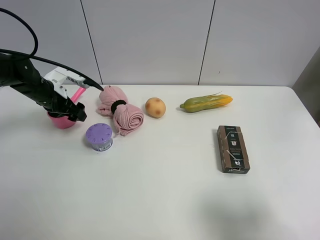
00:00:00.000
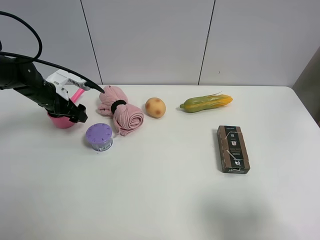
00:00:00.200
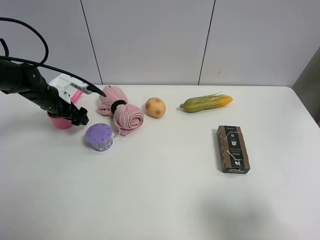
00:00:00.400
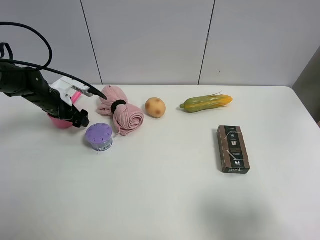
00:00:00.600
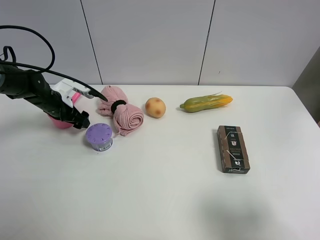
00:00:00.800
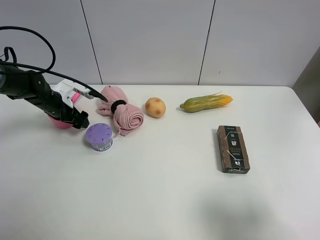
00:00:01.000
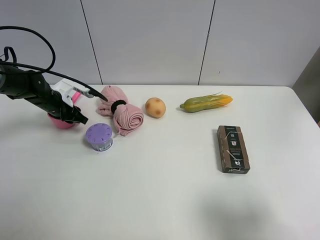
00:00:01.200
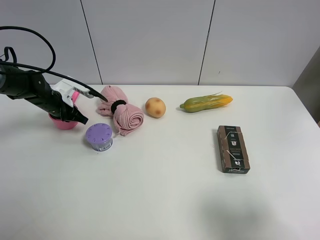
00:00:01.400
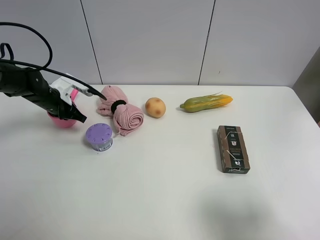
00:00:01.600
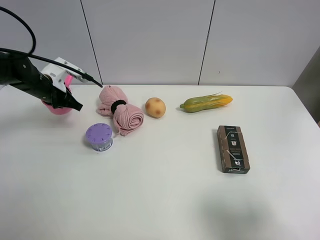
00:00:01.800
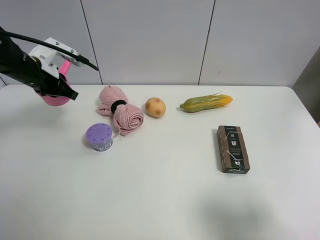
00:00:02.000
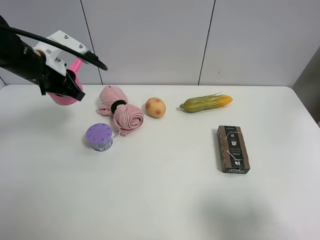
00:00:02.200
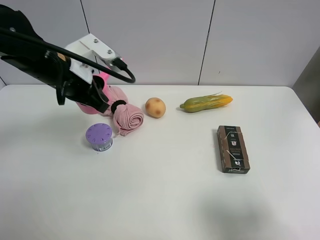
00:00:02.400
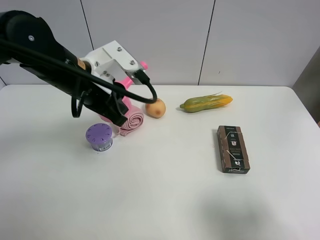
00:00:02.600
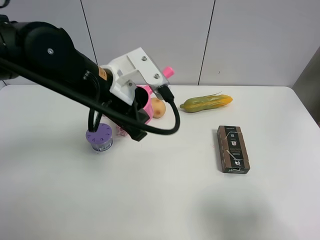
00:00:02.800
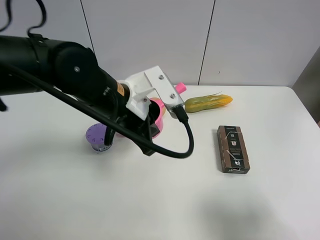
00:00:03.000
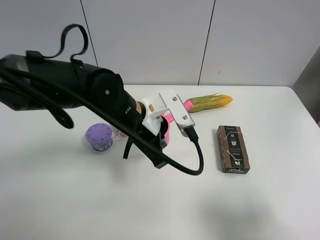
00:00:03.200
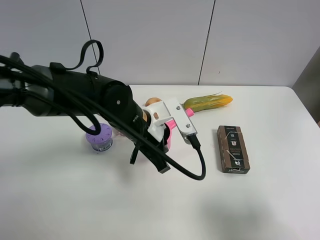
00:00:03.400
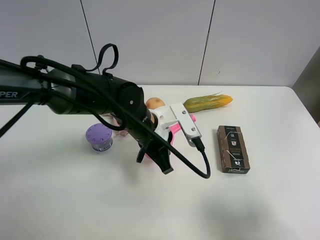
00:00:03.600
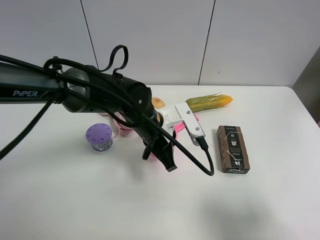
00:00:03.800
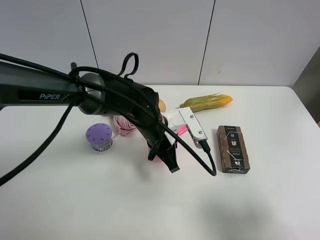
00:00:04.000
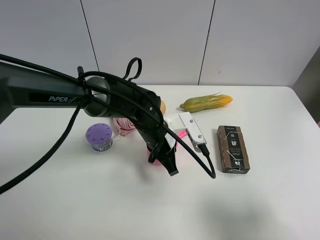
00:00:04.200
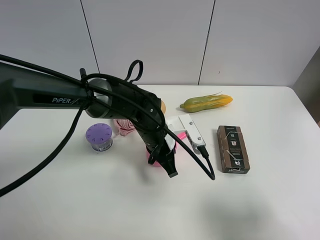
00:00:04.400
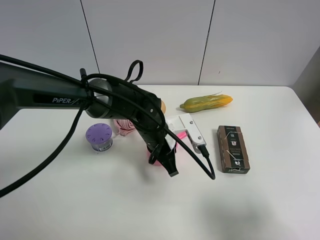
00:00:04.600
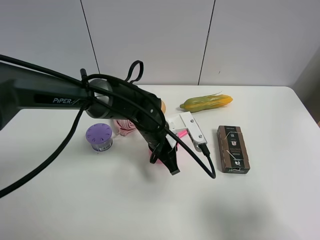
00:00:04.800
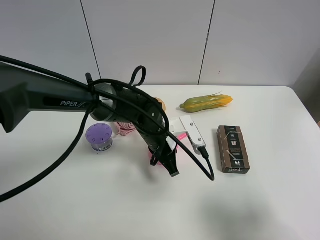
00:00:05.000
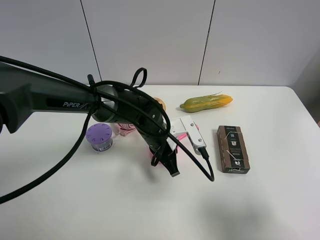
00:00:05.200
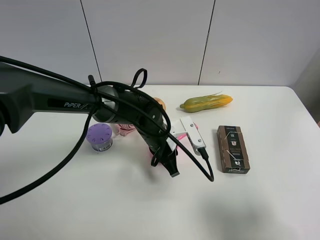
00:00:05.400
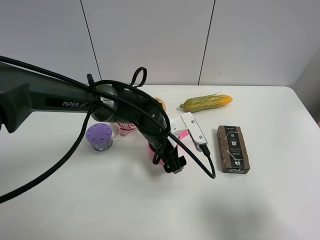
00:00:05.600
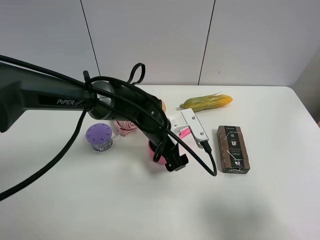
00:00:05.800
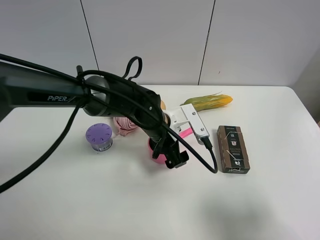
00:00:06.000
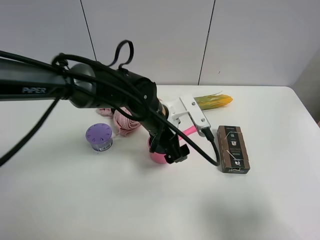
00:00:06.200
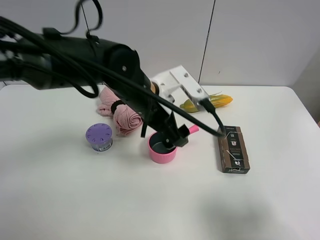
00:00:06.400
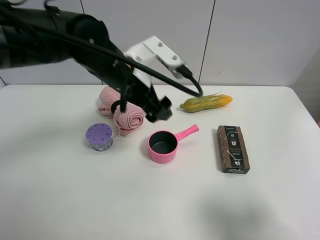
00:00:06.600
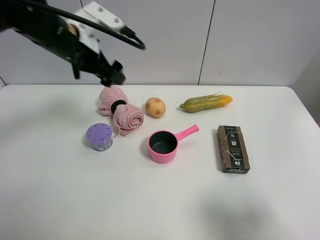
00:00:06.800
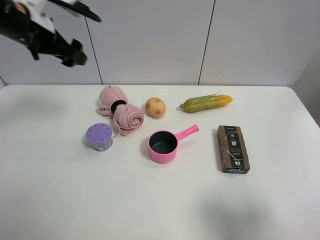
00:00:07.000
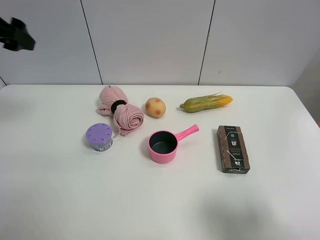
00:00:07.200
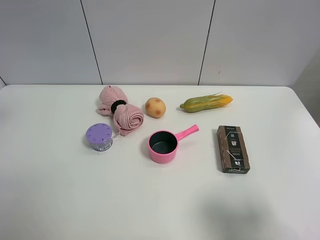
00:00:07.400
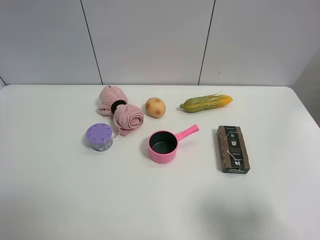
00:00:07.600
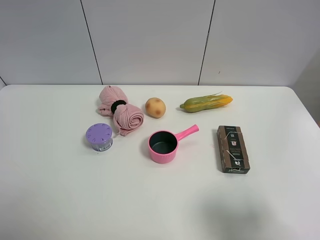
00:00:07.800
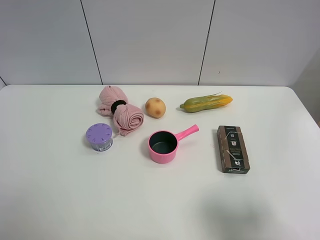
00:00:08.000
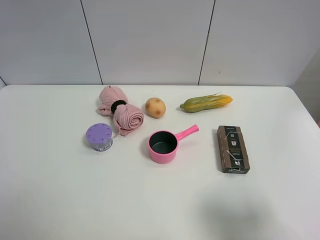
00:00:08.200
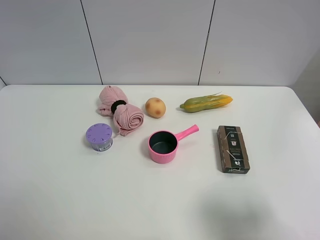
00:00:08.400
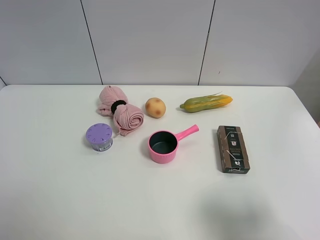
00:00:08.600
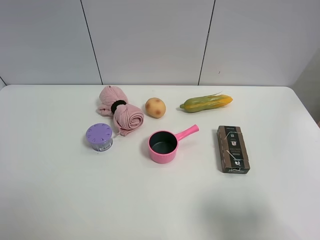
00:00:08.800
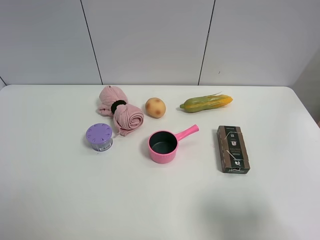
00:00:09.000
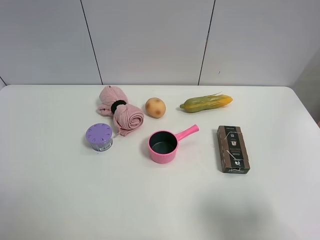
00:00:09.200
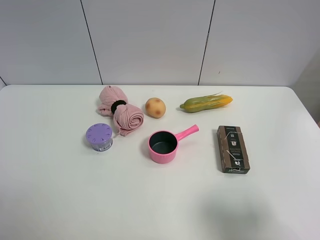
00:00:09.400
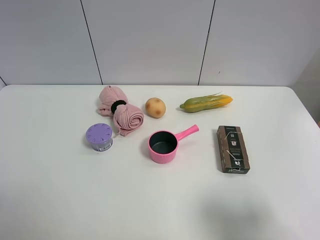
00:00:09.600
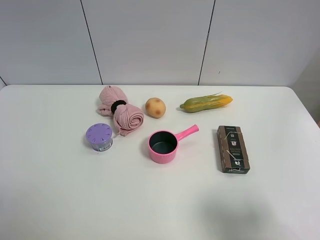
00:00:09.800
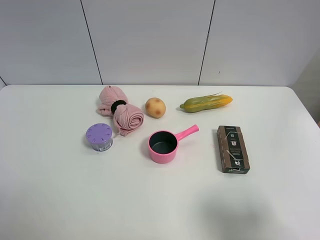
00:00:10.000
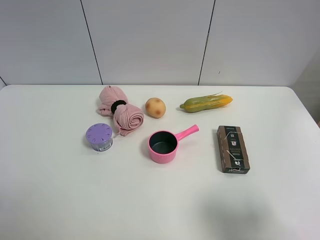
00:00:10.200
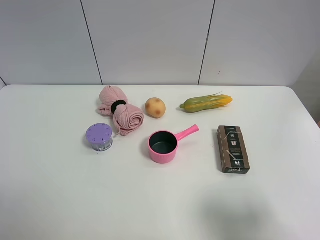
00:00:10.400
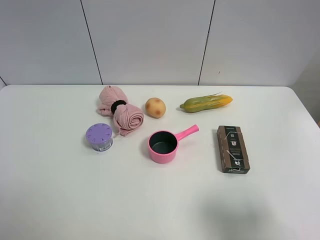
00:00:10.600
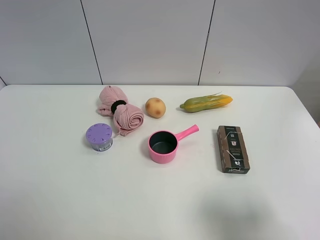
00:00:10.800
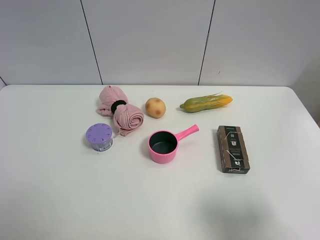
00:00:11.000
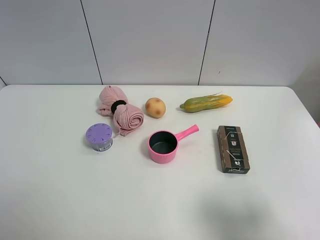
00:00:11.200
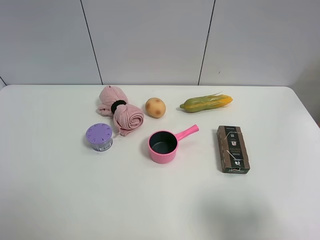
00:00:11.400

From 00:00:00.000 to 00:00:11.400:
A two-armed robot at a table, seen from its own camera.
Task of the whole recording: the gripper move the object.
Step, from 00:00:01.600 to 00:00:05.400: Place the pink pot on the table with the left gripper.
From 00:00:00.000 to 00:00:01.400: The left gripper closes up.
From 00:00:01.400 to 00:00:02.800: The left gripper is displaced to the right, upward and backward by about 30 cm.
From 00:00:02.800 to 00:00:04.200: The left gripper moves downward and to the right, some 15 cm.
From 00:00:04.200 to 00:00:05.600: The left gripper opens up.
From 00:00:05.600 to 00:00:07.200: The left gripper travels to the left and upward by approximately 40 cm.
From 00:00:07.200 to 00:00:08.600: The left gripper heads backward, covering some 30 cm.

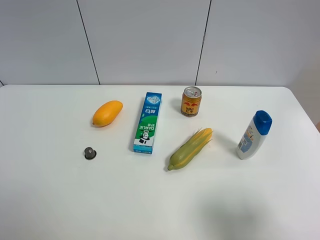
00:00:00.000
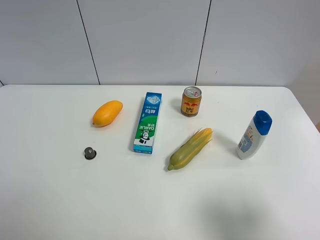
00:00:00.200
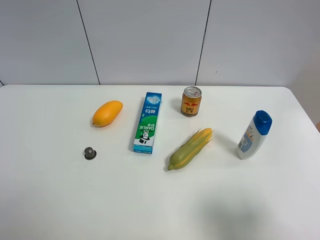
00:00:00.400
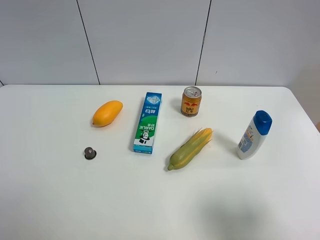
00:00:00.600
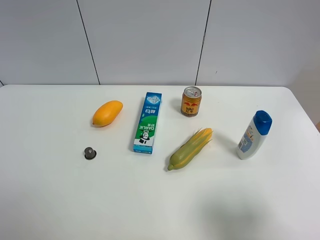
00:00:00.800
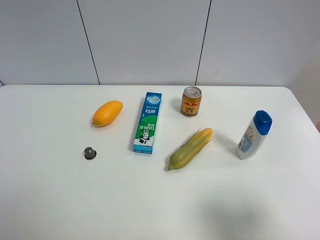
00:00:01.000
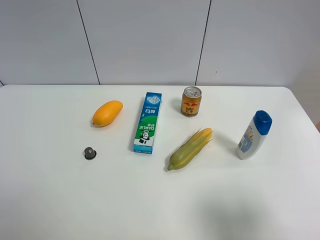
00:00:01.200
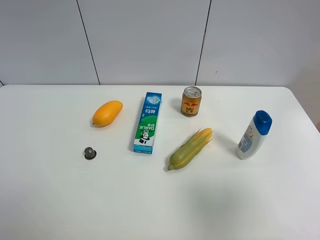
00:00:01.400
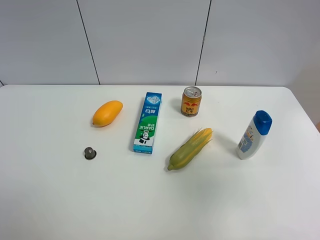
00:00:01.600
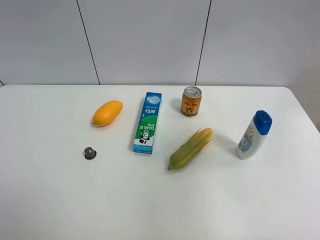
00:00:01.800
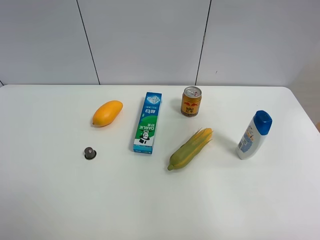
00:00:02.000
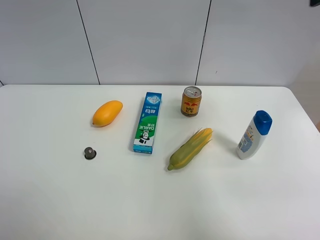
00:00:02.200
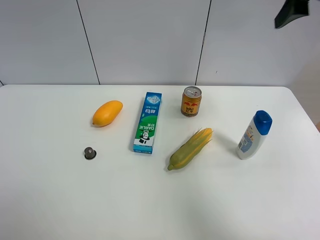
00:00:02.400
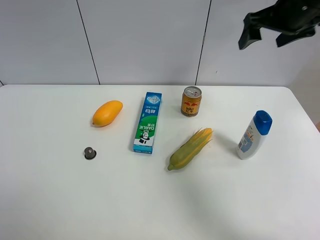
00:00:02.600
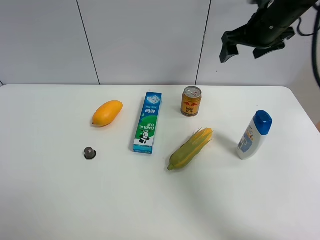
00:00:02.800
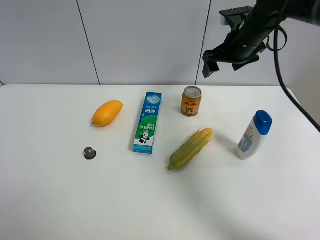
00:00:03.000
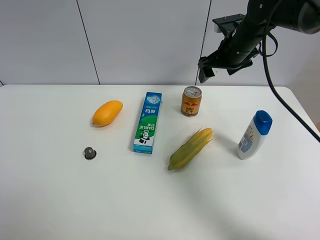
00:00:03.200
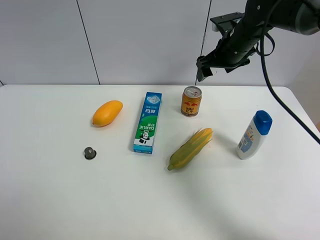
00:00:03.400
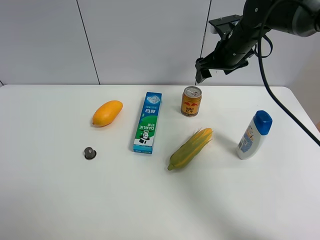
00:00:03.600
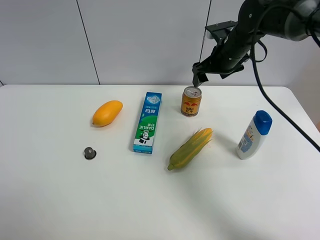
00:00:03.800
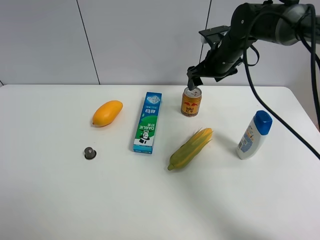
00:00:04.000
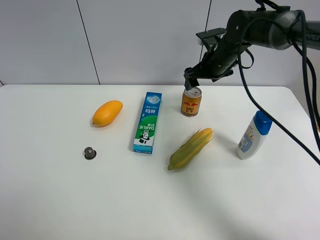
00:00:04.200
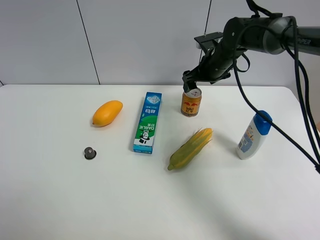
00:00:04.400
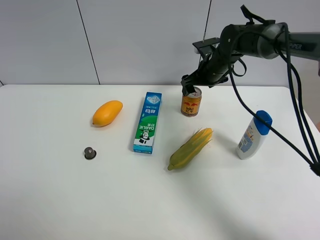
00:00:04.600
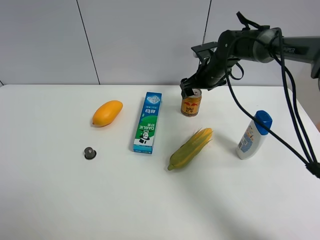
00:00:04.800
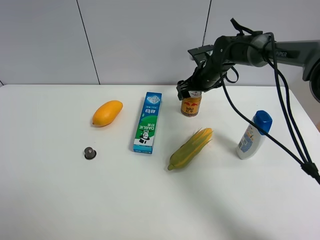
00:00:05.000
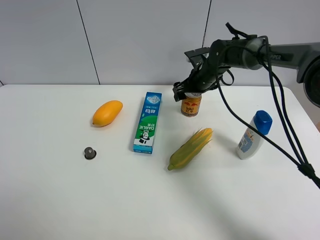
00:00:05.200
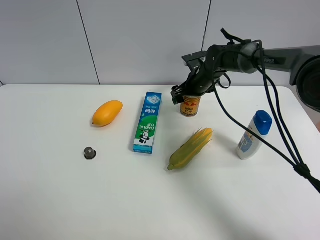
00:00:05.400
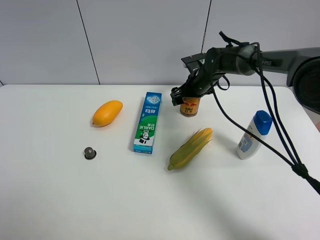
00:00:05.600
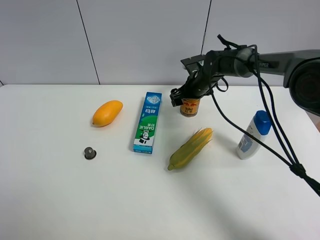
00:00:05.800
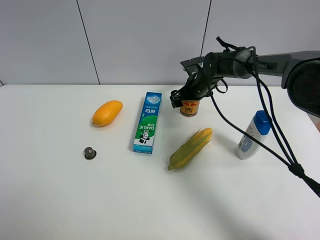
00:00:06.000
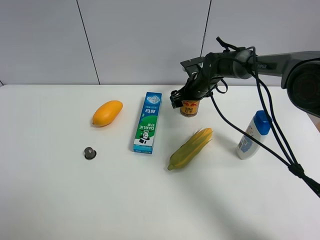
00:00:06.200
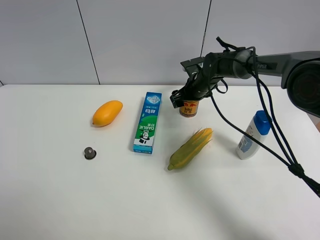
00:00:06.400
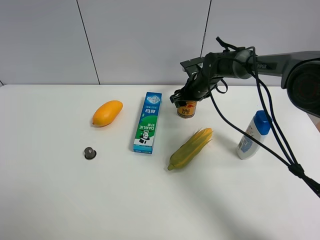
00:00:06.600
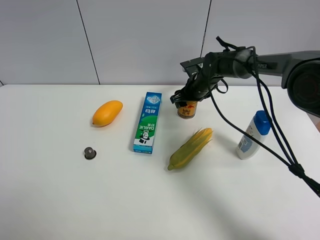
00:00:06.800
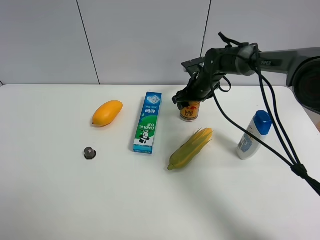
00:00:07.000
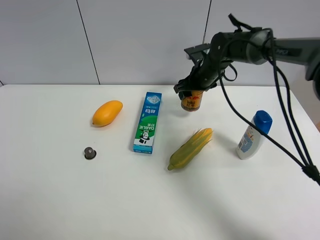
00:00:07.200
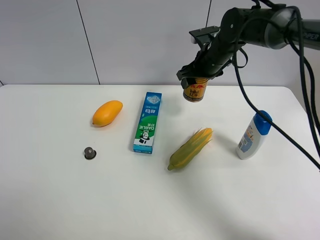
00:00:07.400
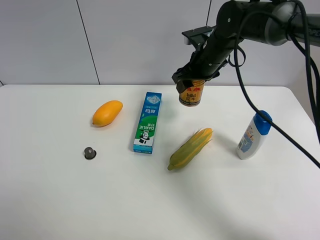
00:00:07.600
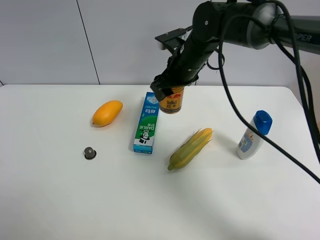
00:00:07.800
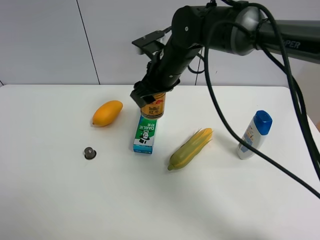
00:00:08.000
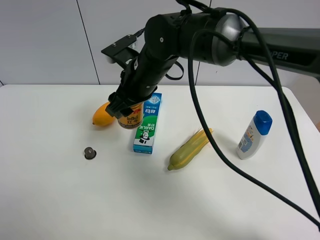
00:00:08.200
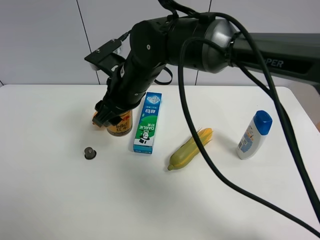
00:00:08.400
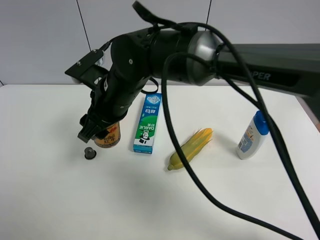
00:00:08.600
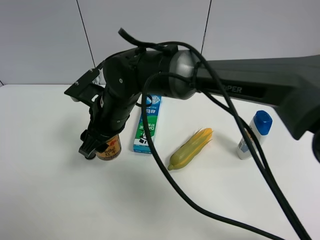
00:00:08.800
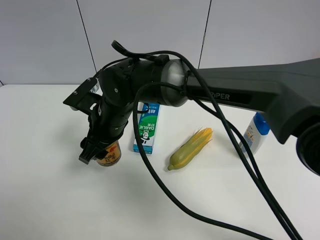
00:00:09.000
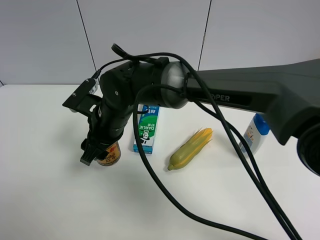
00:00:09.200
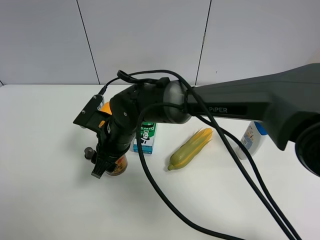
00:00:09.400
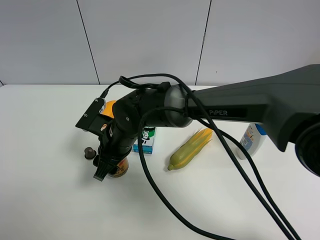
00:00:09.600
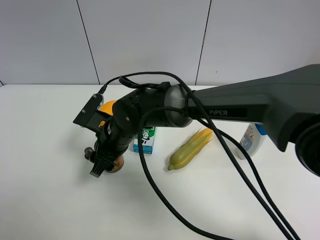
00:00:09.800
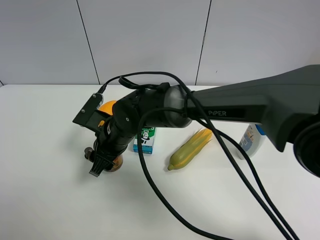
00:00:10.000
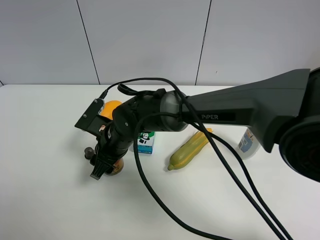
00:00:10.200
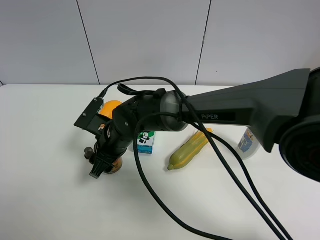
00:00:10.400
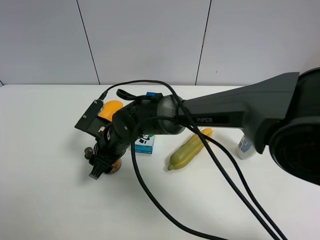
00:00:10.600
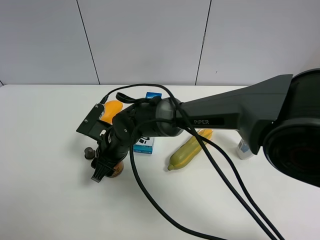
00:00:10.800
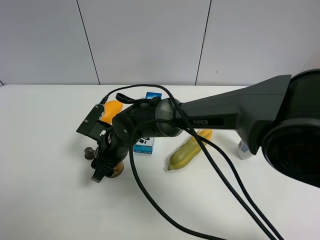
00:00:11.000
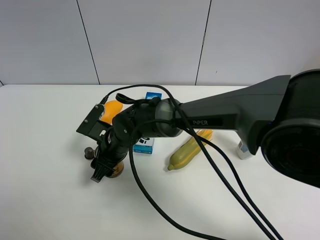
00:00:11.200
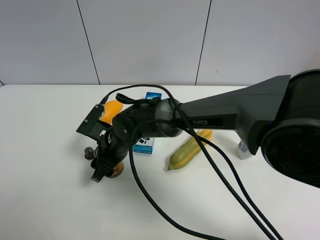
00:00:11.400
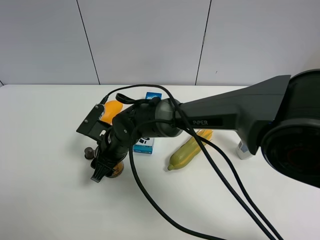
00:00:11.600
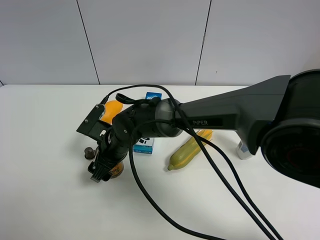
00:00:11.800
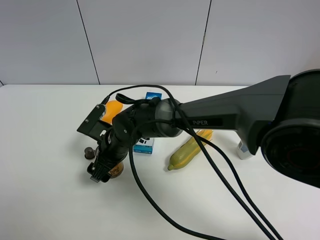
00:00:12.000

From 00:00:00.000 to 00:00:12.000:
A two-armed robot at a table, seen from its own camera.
Task of the whole recording: the gripper move the object.
Step, from 00:00:00.000 to 00:00:06.400: Grasp the red bull with the right gripper.
From 00:00:00.000 to 00:00:01.600: The right gripper goes approximately 15 cm upward.
From 00:00:01.600 to 00:00:03.000: The right gripper shifts approximately 40 cm forward.
From 00:00:03.000 to 00:00:04.400: The right gripper heads downward, covering roughly 10 cm.
From 00:00:04.400 to 00:00:06.000: The right gripper goes some 10 cm downward.
From 00:00:06.000 to 00:00:07.600: The right gripper goes some 15 cm upward and backward, and closes.
From 00:00:07.600 to 00:00:09.000: The right gripper heads to the left and backward, covering about 25 cm.
From 00:00:09.000 to 00:00:10.400: The right gripper heads downward, covering roughly 5 cm.
From 00:00:10.400 to 00:00:12.000: The right gripper opens.
